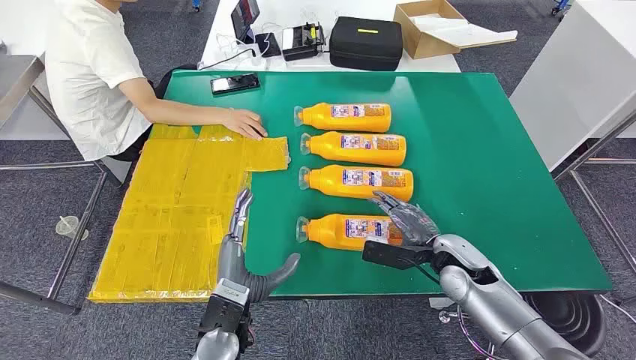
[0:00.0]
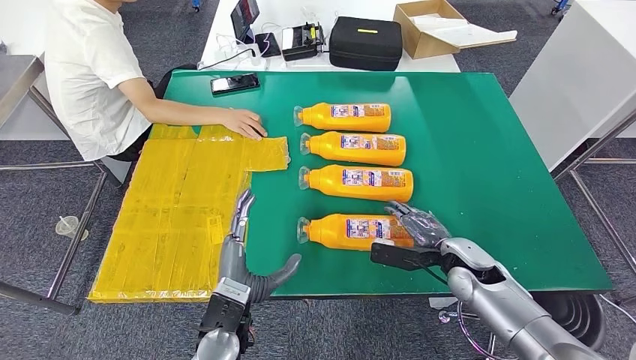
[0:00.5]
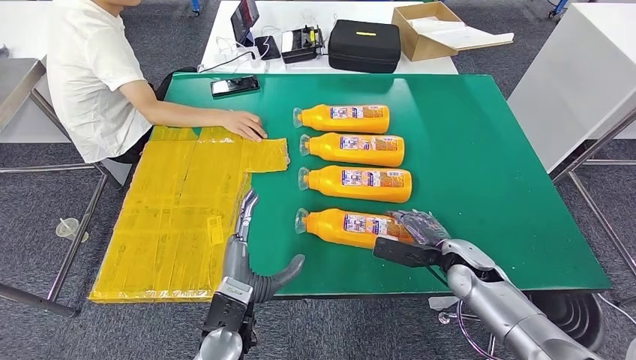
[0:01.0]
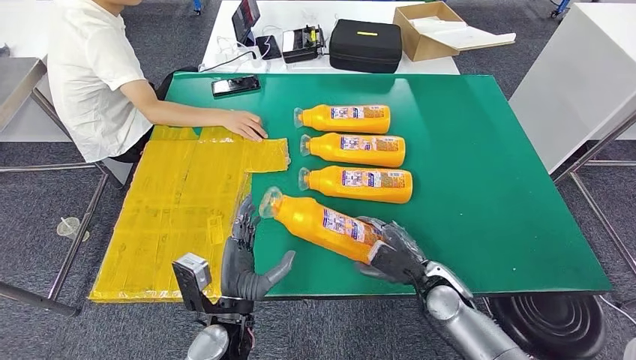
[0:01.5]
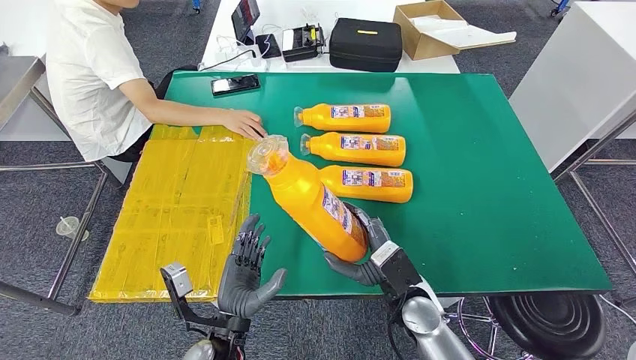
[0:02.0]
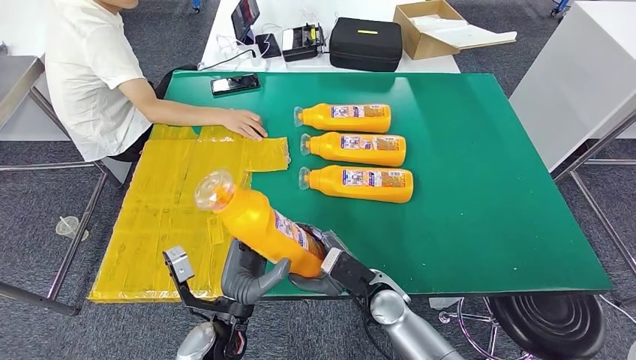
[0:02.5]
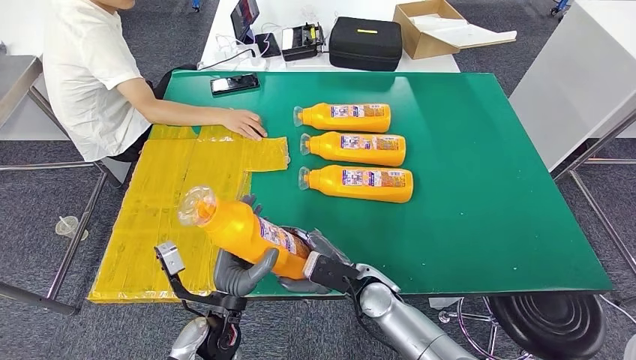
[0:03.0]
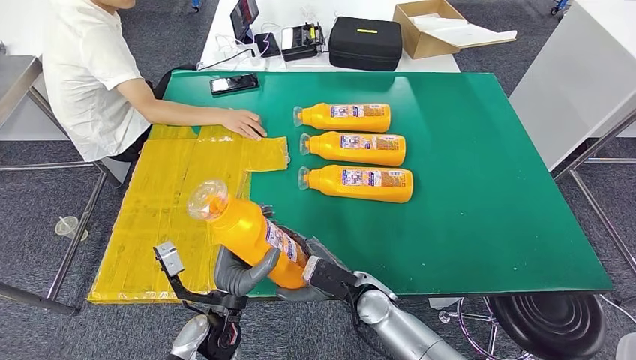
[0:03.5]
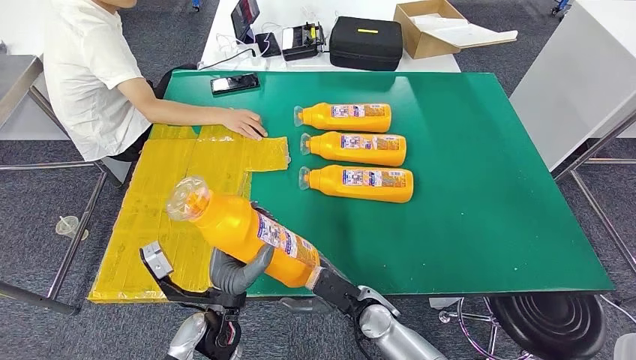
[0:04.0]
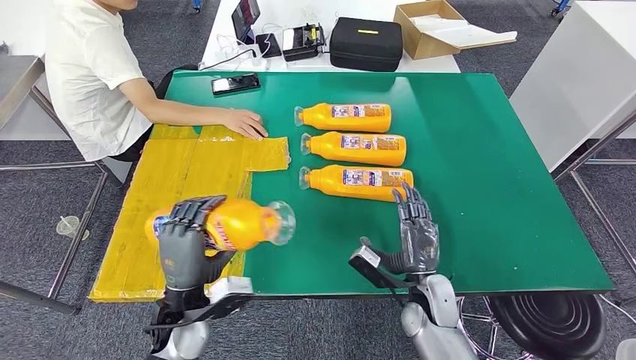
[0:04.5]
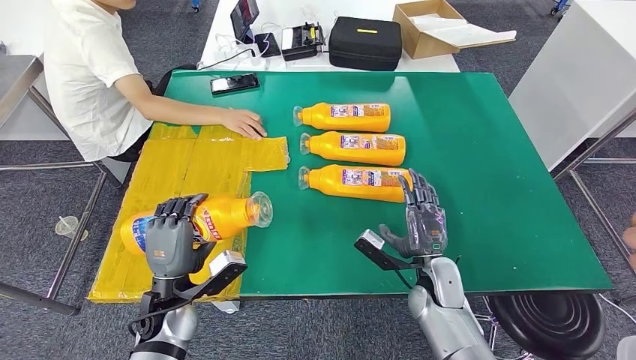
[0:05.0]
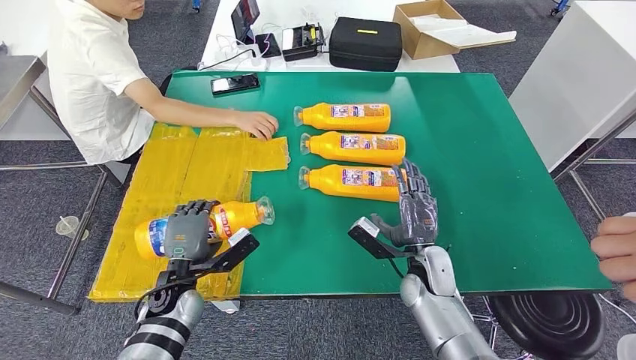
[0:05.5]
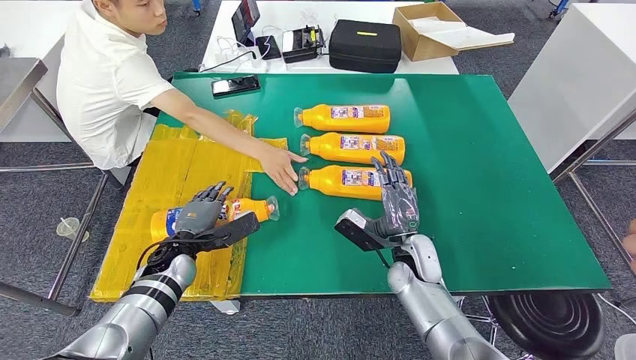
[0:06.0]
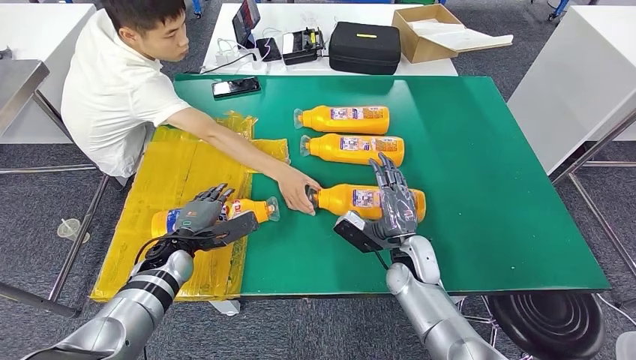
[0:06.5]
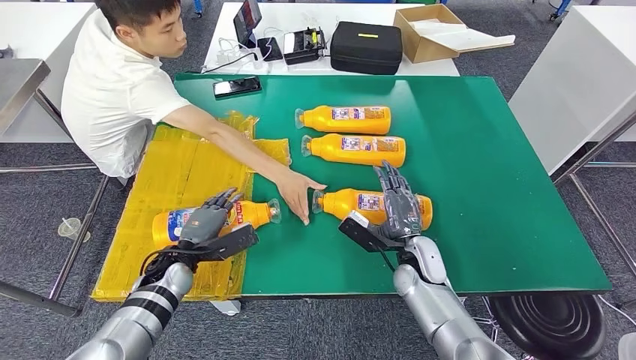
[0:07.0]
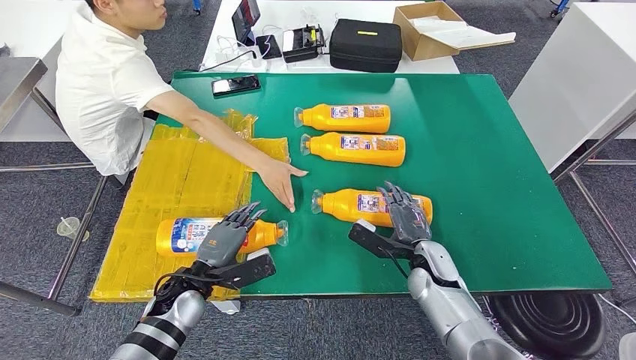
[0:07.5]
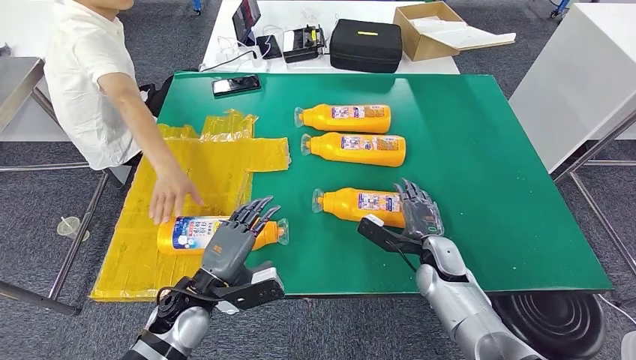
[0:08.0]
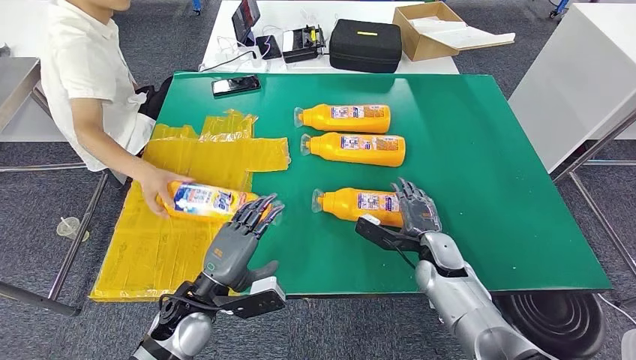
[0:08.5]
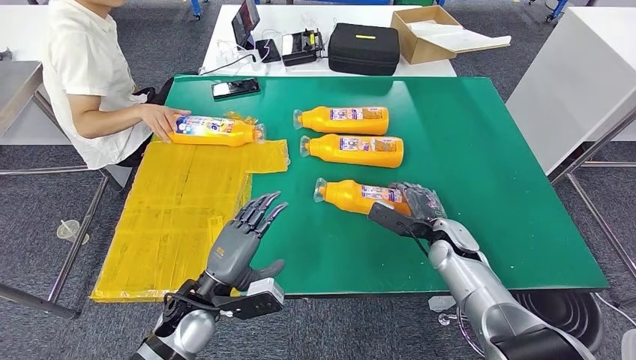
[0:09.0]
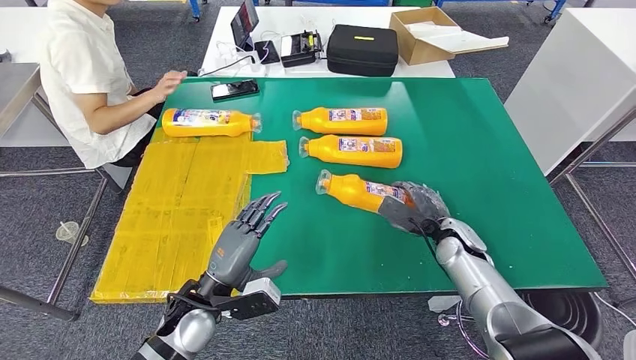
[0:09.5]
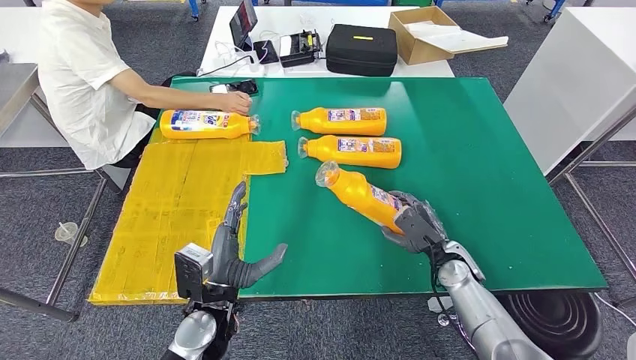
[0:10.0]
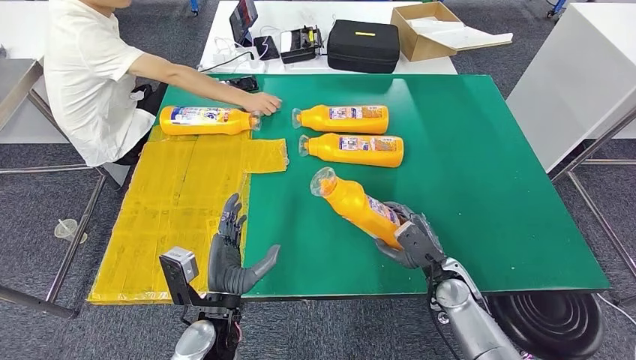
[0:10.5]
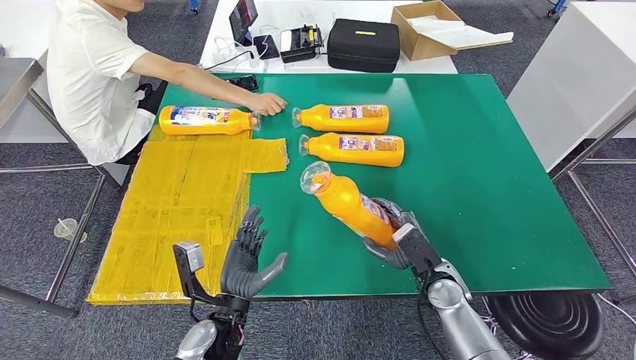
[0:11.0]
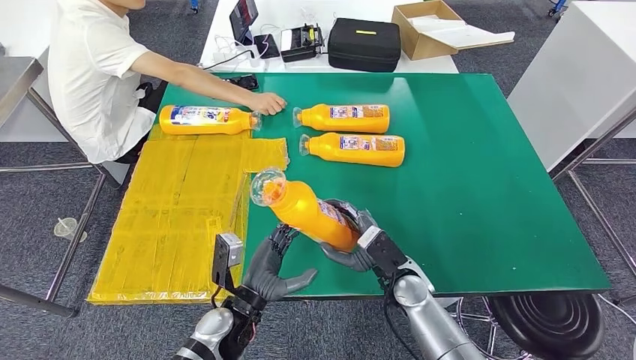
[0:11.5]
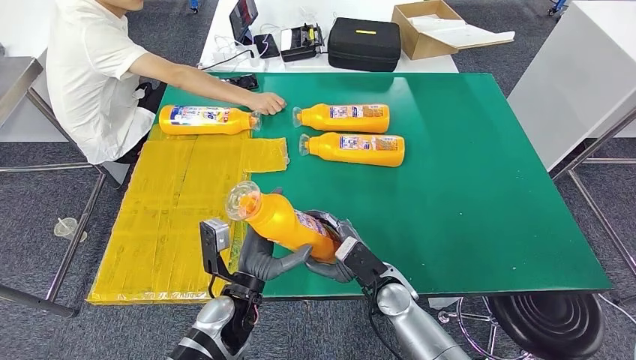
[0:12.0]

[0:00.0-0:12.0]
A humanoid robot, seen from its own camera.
Step, 0:00.0 to 0:02.5: Take the bottle from the table.
Step, 0:03.0 to 0:06.0: Flip the bottle to face forward.
Step, 0:08.0 to 0:11.5: Pick up the bottle from the table.
0:02.0 to 0:04.0: The right hand is displaced downward and to the left by approximately 10 cm.

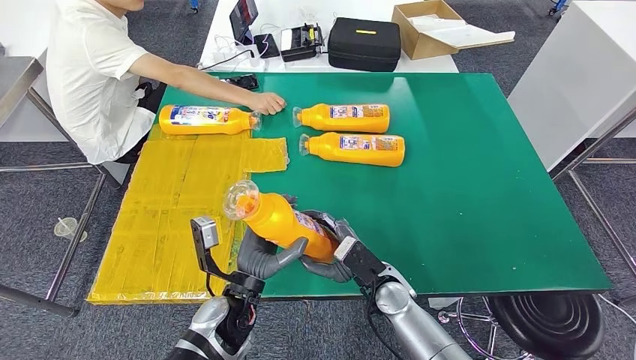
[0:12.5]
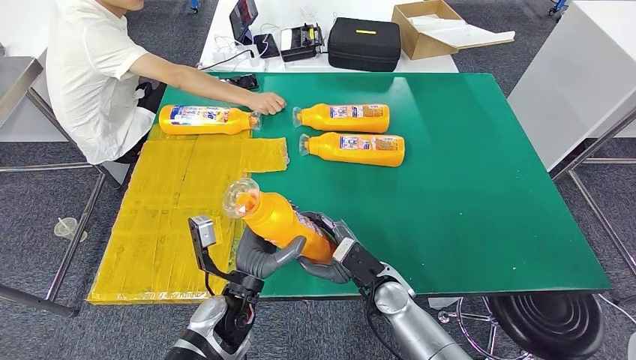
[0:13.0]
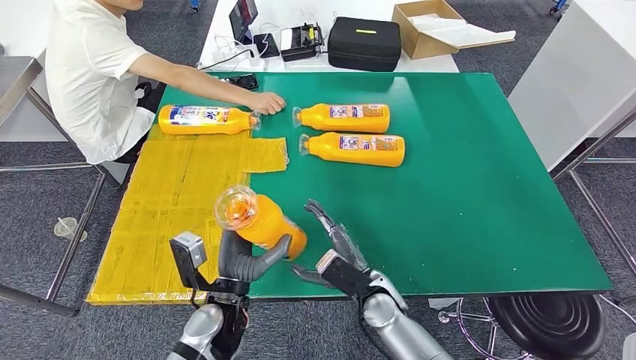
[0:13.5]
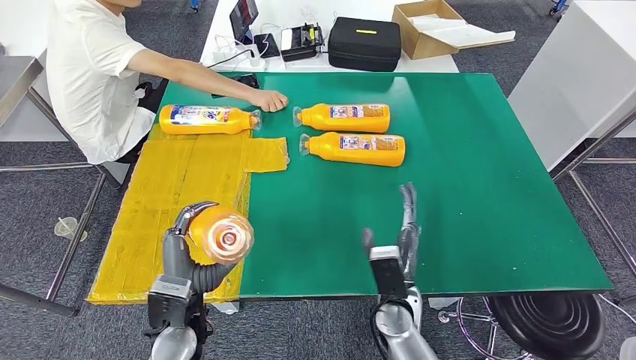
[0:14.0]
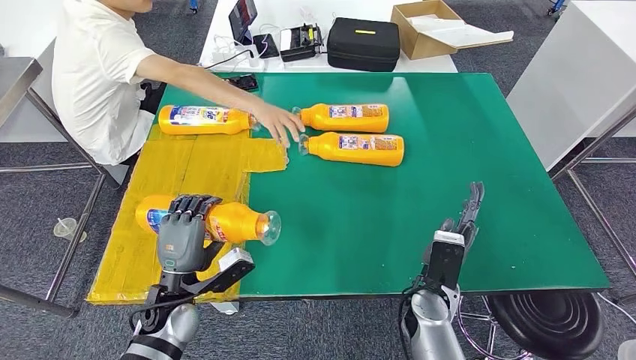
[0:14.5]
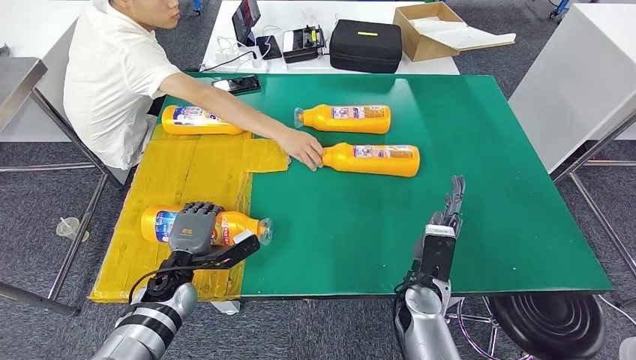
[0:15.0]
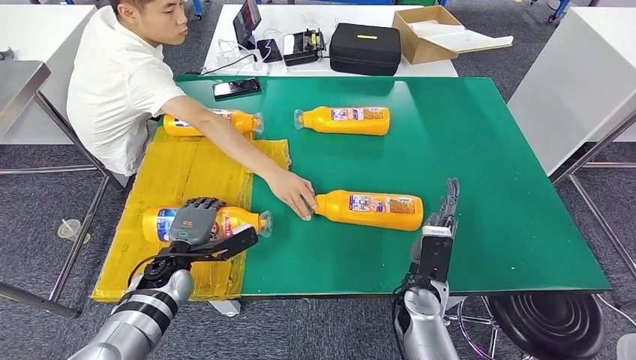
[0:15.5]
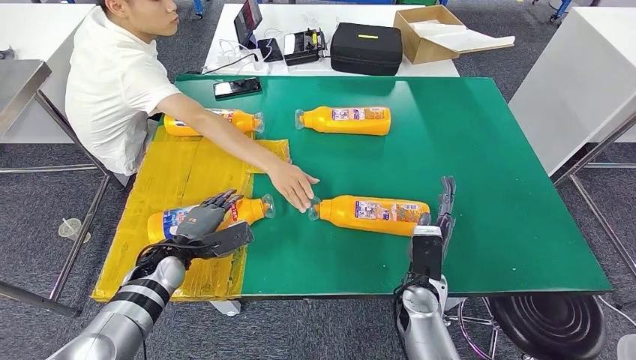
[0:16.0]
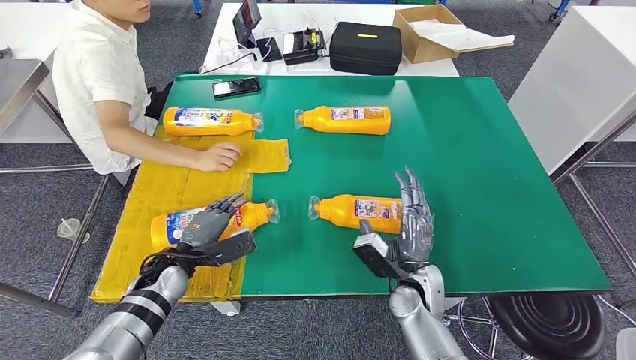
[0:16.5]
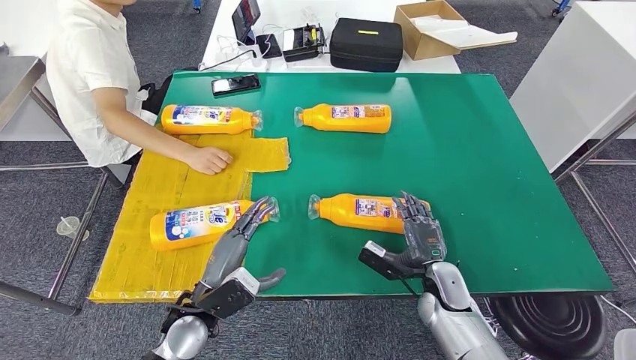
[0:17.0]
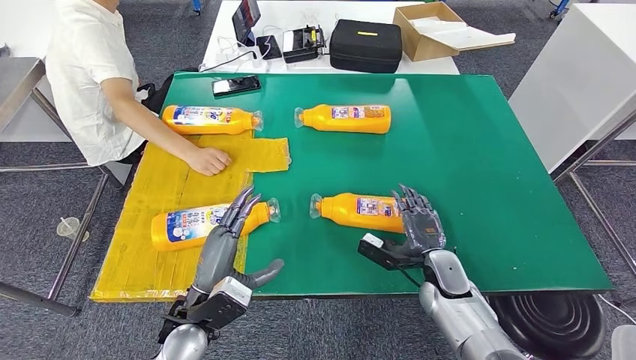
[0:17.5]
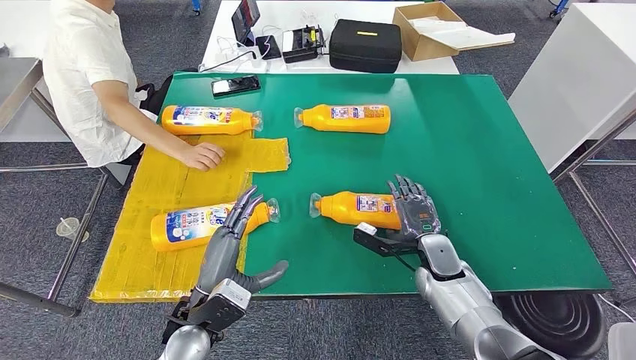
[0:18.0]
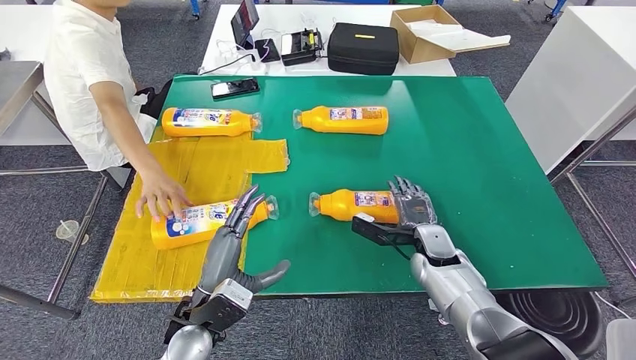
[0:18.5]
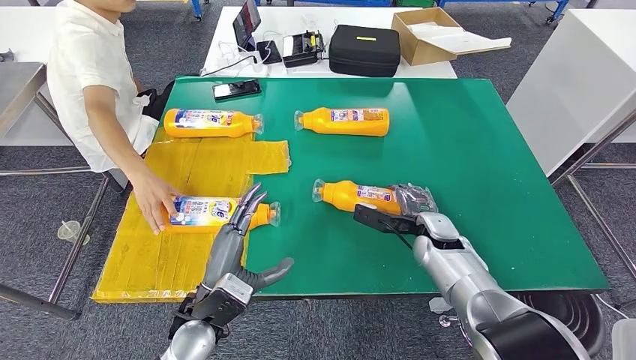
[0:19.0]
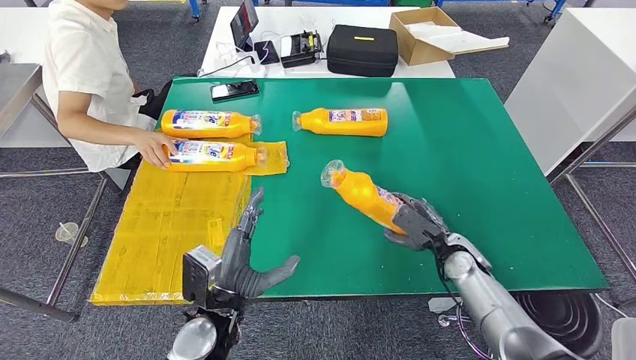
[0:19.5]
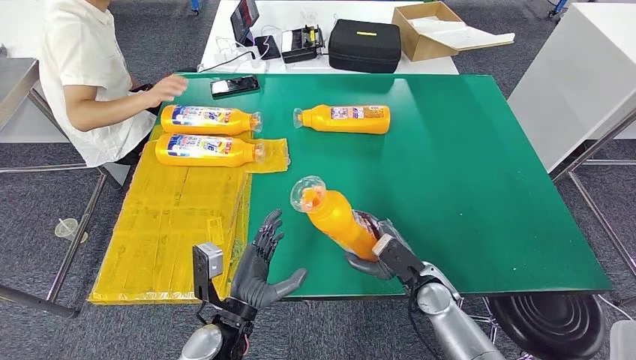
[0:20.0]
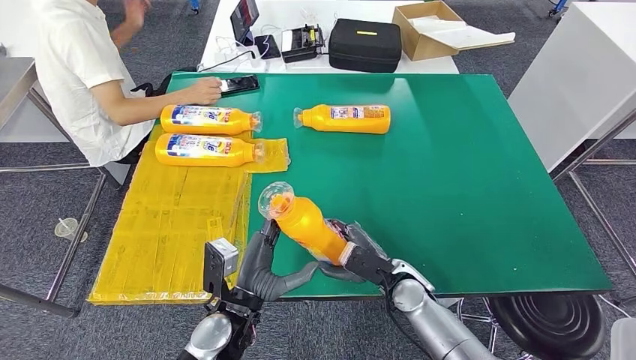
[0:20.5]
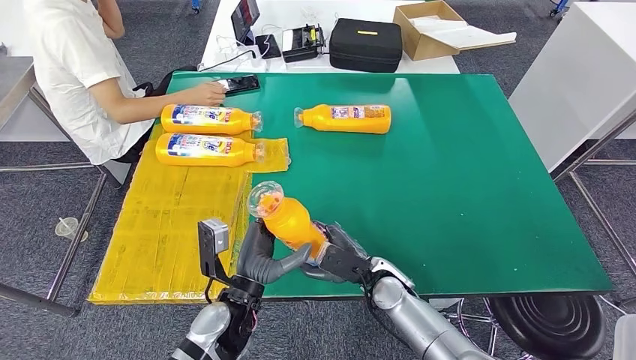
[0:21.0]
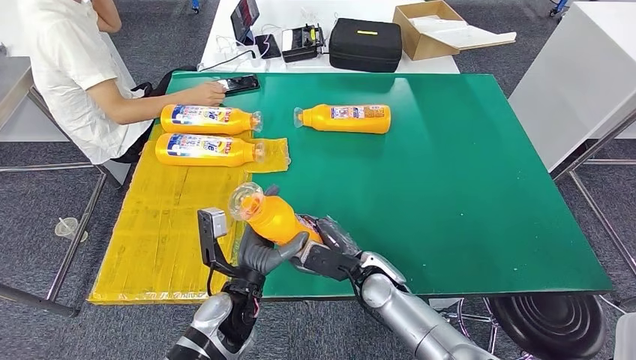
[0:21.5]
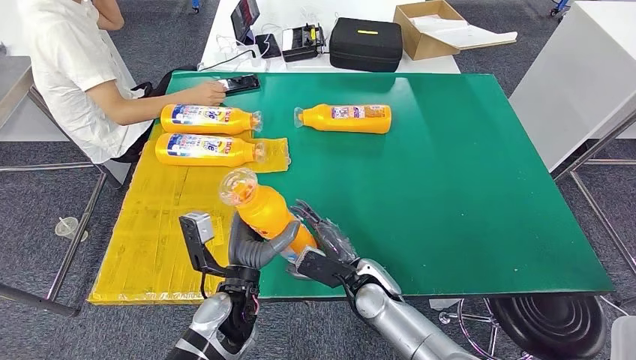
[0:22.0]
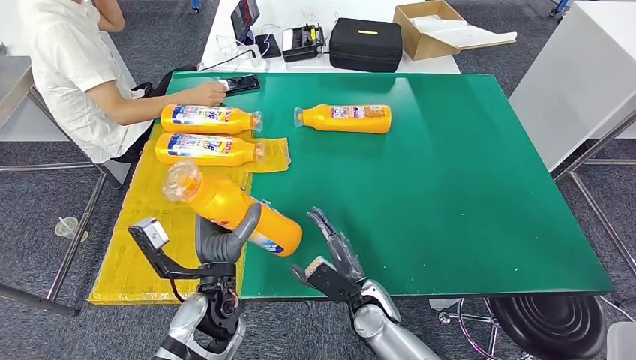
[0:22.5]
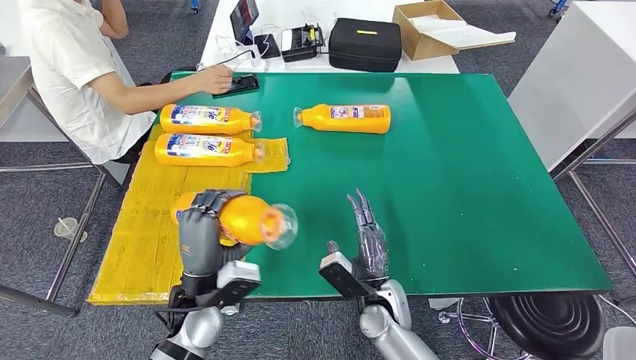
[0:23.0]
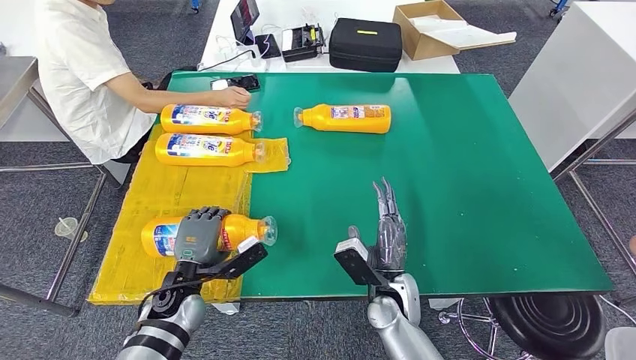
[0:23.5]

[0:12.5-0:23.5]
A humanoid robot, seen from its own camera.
Step, 0:12.5 to 0:16.0: Flip the bottle to face forward.
Step, 0:18.0 to 0:20.0: Pick up the bottle from the table.
0:12.5 to 0:14.5: The right hand travels to the right by approximately 5 cm. Meanwhile the left hand shifts some 10 cm to the left.
0:18.0 to 0:20.0: The right hand moves backward, approximately 5 cm, while the left hand shifts by some 5 cm.
0:20.0 to 0:21.5: The left hand ends up about 5 cm from where it was. Meanwhile the right hand moves to the left, approximately 10 cm.
0:21.5 to 0:23.5: The left hand heads to the left, covering approximately 10 cm.
